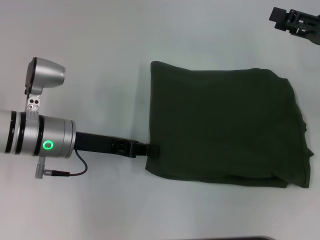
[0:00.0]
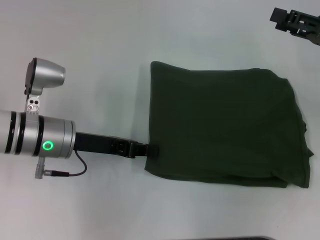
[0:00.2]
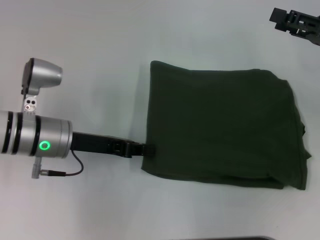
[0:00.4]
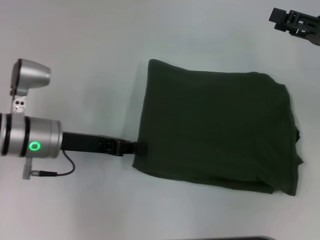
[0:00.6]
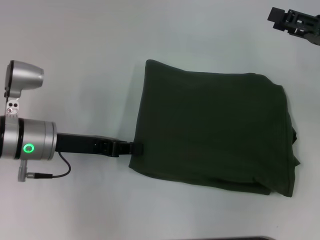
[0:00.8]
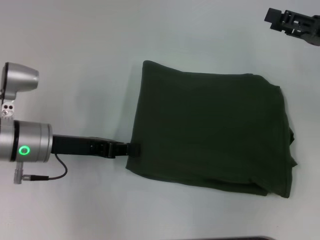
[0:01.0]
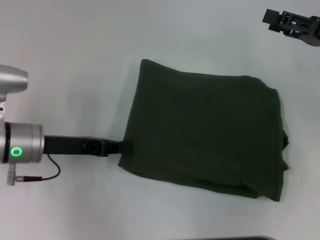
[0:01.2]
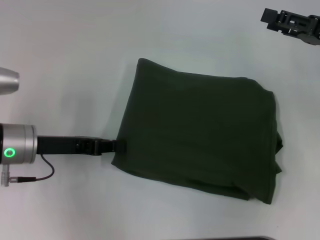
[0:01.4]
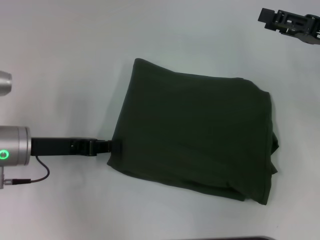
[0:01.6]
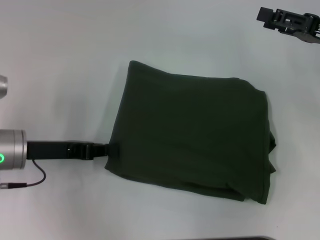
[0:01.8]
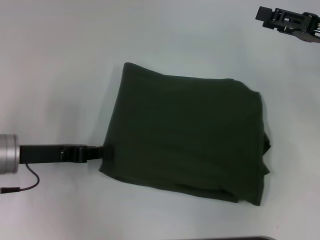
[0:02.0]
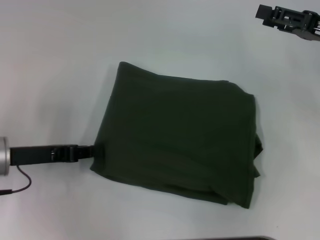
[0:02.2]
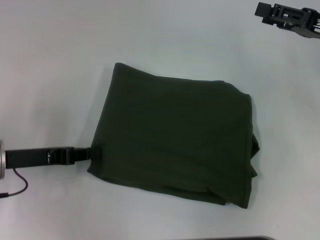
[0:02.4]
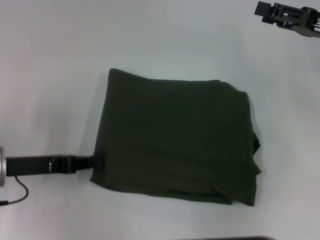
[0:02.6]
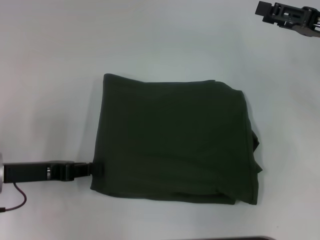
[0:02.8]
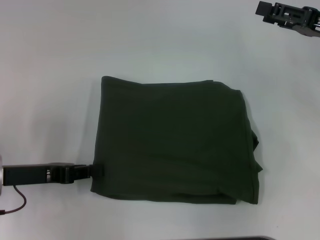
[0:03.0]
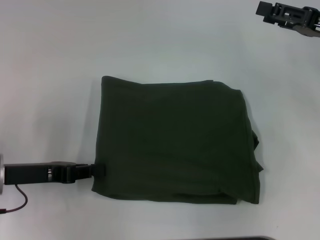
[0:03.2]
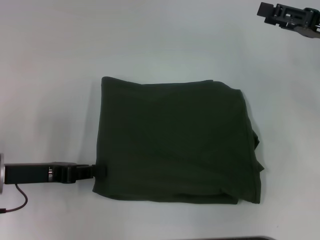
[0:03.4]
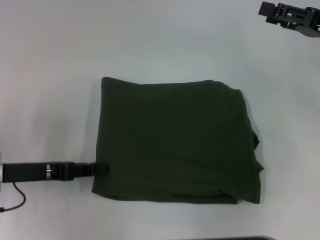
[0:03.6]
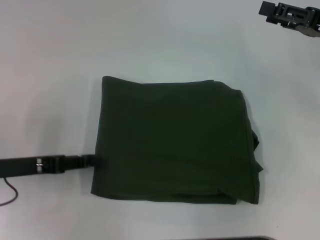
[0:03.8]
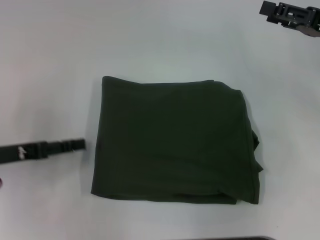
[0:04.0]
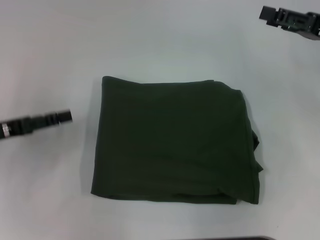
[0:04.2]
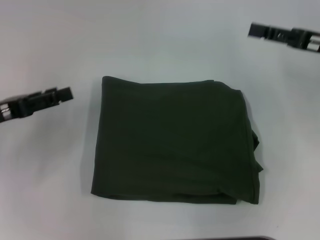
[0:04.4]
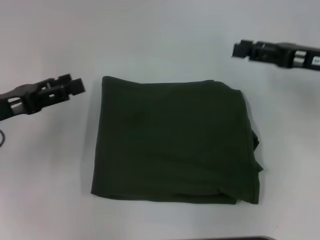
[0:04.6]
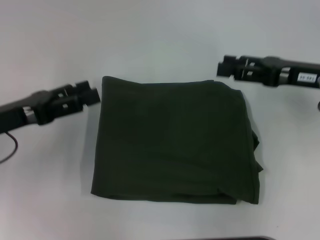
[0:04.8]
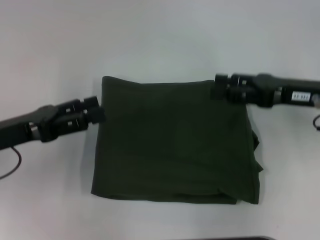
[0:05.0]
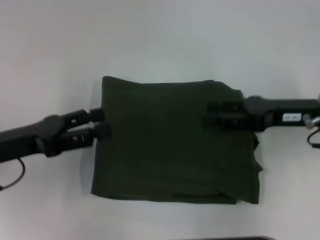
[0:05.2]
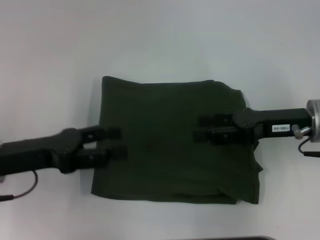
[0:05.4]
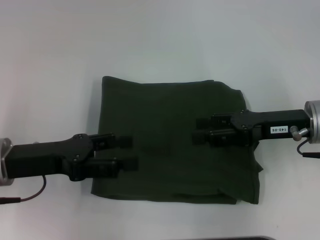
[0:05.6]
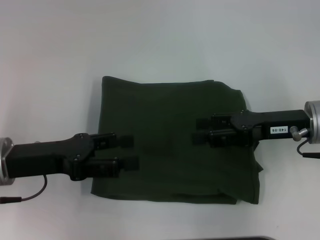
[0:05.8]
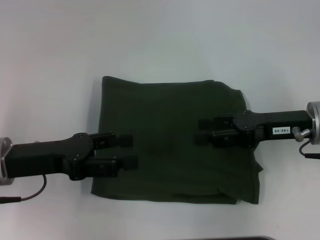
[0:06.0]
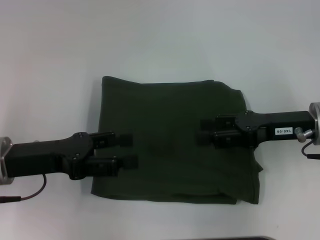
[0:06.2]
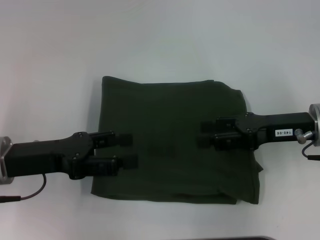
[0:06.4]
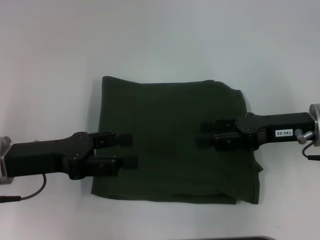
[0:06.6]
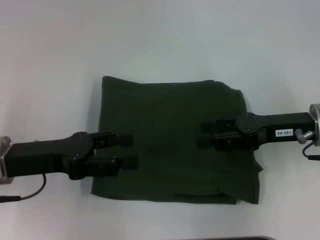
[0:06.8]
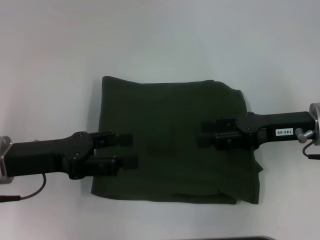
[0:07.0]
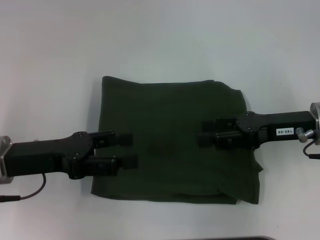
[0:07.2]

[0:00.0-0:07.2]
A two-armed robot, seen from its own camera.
0:00.0 to 0:01.4: The left gripper travels to the left by approximately 5 cm.
0:01.4 to 0:02.8: The left gripper changes place by about 5 cm.
0:02.8 to 0:04.4: The left gripper changes place by approximately 5 cm, and opens its fingers.
0:04.4 to 0:05.8: The left gripper is displaced to the right by approximately 5 cm. The right gripper heads to the left, covering approximately 5 cm.
0:05.8 to 0:07.2: Both grippers stay about where they are.
